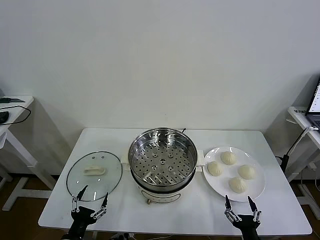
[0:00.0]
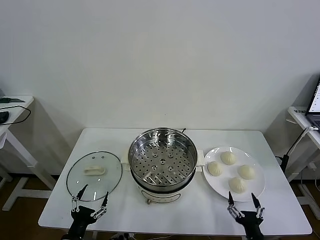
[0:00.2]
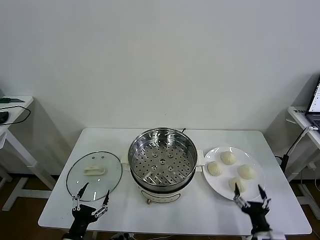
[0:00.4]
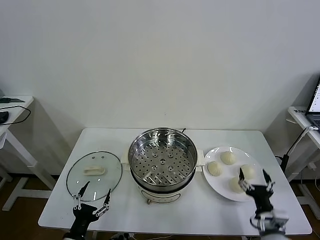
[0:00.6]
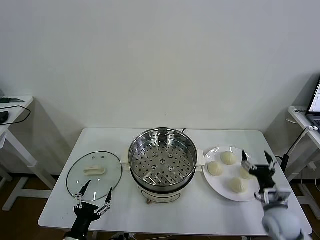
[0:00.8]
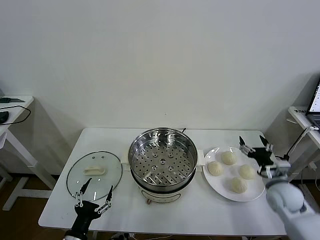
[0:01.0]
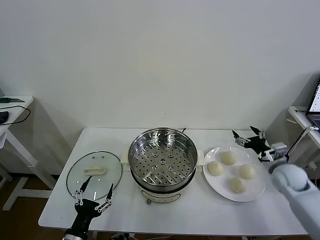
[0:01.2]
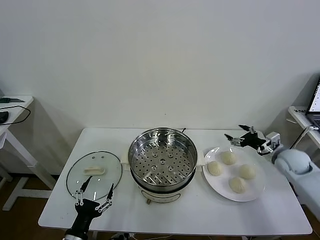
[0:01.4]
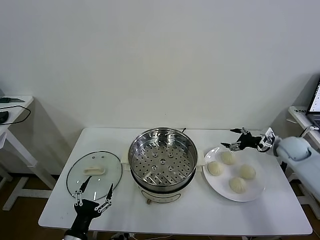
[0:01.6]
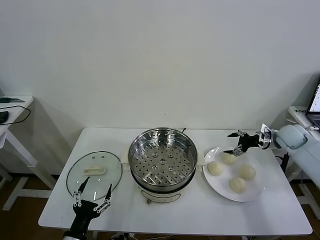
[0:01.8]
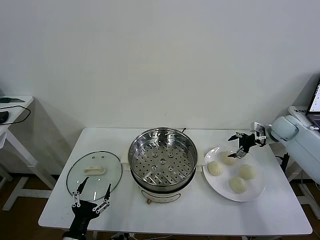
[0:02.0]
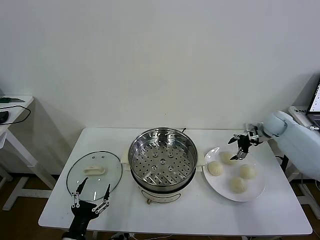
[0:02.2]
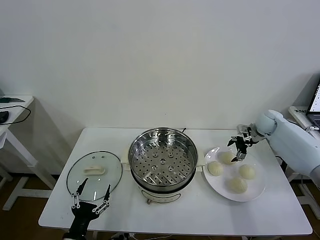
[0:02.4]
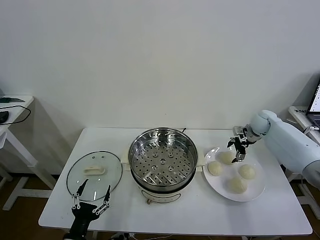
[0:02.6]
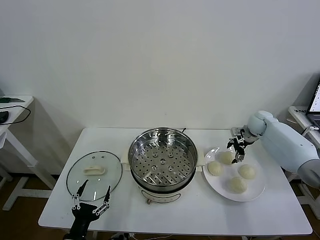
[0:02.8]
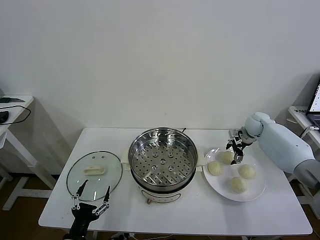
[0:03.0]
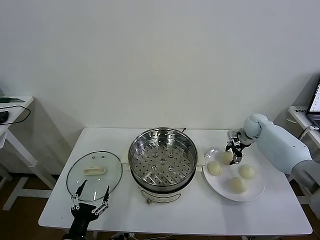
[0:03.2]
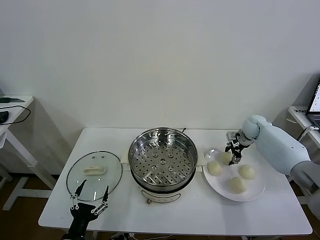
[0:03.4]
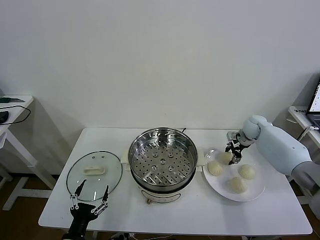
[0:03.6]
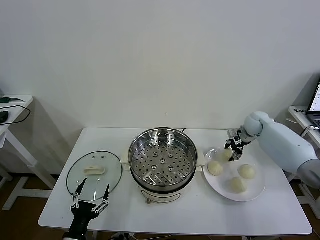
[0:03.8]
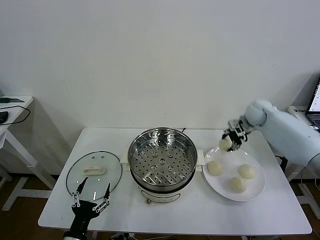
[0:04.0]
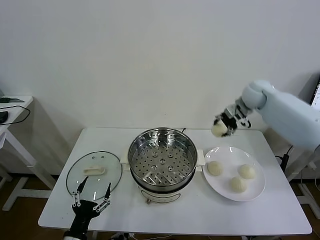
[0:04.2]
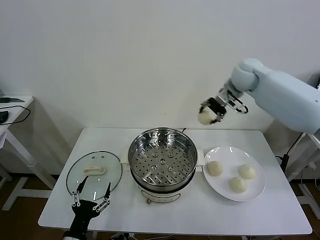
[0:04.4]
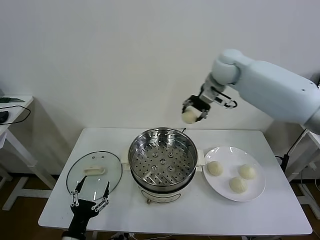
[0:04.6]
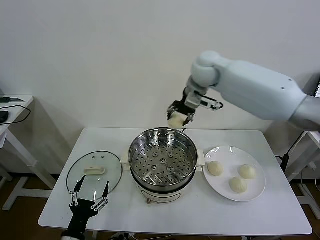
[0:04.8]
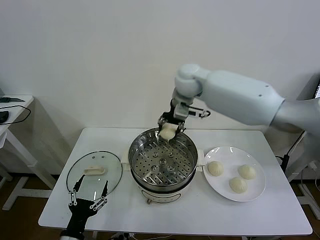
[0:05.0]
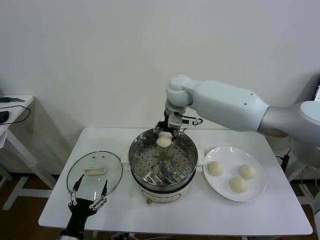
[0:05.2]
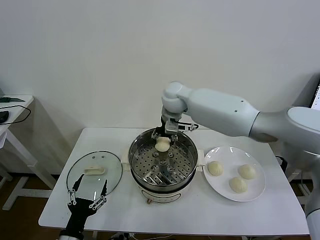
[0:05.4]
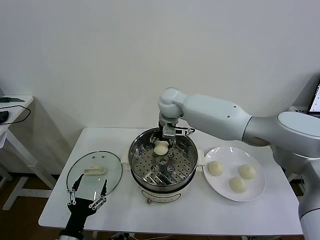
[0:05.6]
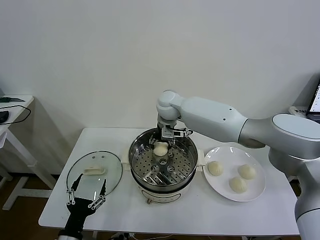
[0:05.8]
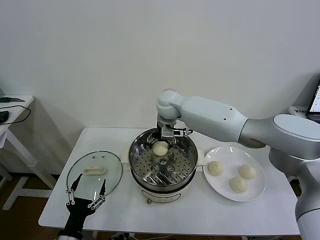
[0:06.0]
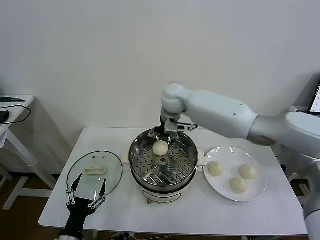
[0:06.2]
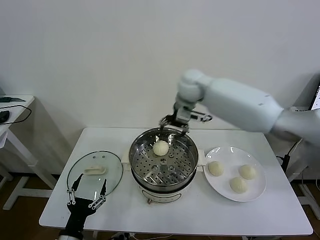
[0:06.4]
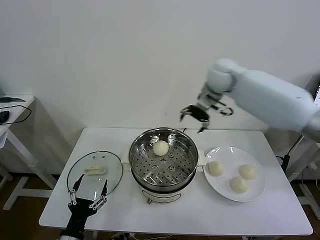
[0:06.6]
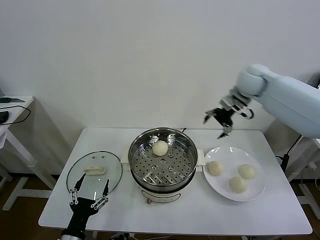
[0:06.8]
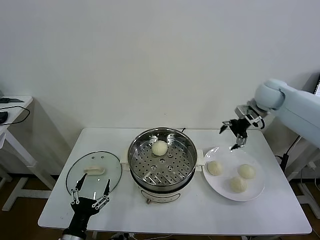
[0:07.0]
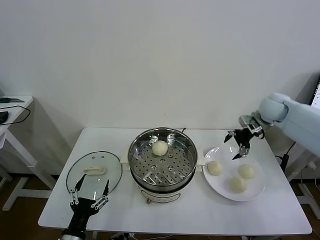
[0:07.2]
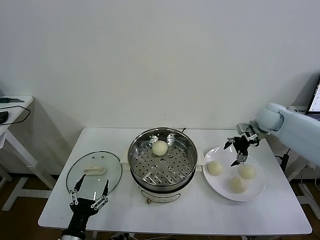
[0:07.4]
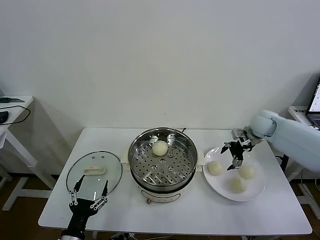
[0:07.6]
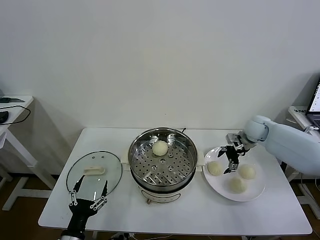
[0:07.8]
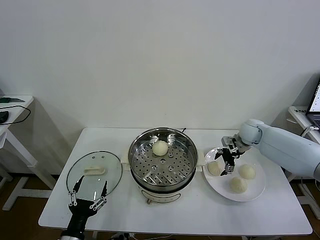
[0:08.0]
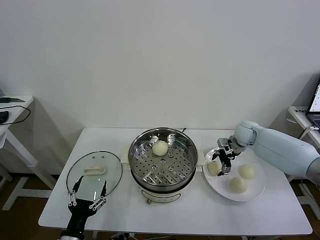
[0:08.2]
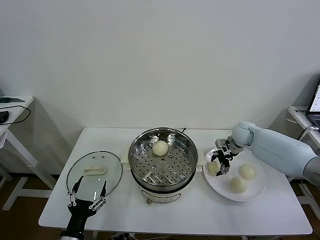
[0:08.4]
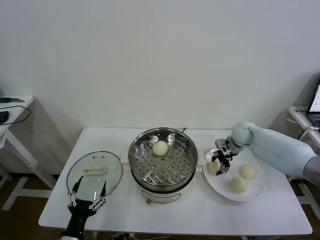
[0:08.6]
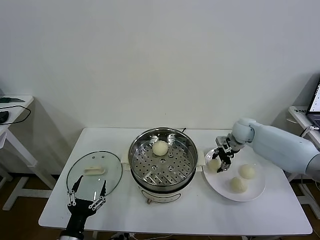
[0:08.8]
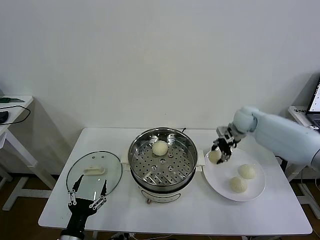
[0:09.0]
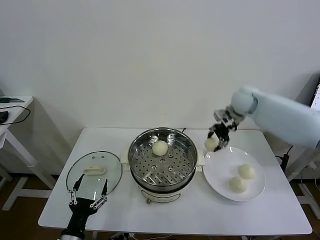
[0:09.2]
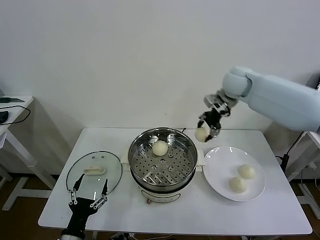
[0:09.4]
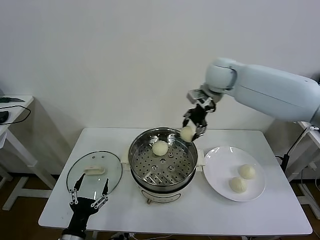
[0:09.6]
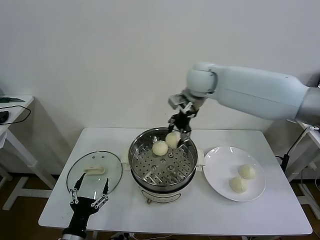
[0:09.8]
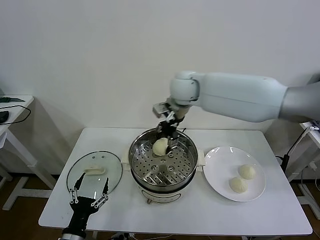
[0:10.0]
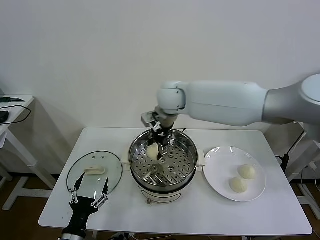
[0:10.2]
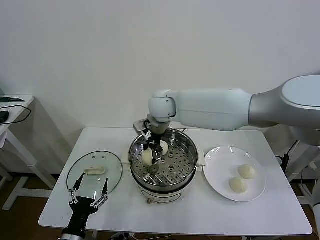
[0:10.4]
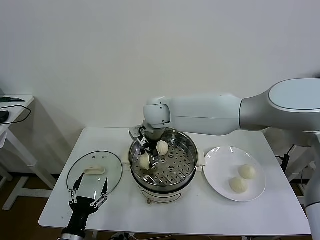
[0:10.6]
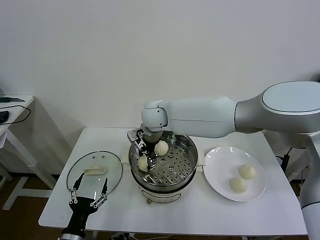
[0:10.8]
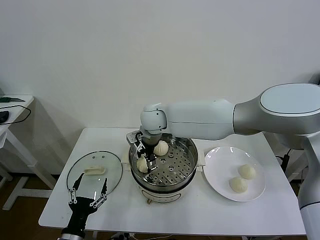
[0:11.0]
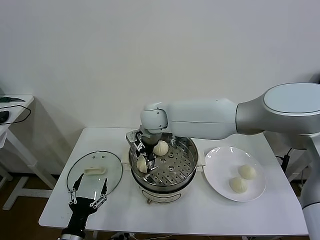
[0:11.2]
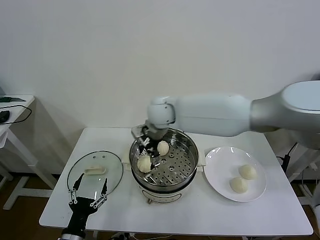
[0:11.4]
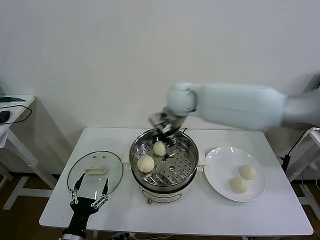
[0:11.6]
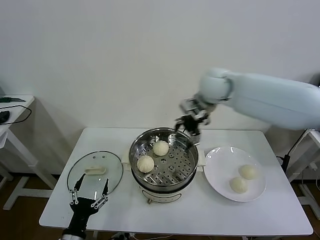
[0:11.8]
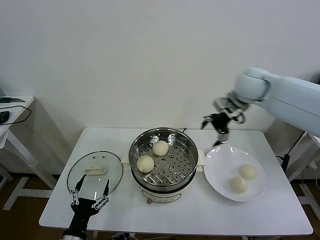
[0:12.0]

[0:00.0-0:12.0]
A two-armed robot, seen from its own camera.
Task of the whole recording: take steamed baozi put them in steamer then cover it.
Step, 0.0 to 3.4 s: Grasp the baozi in the plate with right gripper.
Step, 3.6 to 6.0 s: Place the baozi on the steamer with right gripper.
Step, 6.2 to 8.6 s: Grasp the baozi in the plate with right gripper.
Step, 8.8 to 11.2 s: Place the baozi on the steamer with right gripper.
1.6 to 3.0 s: The right gripper is displaced forward and to the left by some 15 cm.
3.0 to 4.4 s: The right gripper travels upward and to the left by some 30 cm, and closes up.
4.4 to 6.0 s: The right gripper goes roughly 20 cm to the left and downward, and opens its fingers.
6.0 to 7.6 s: The right gripper is displaced to the right by approximately 35 cm.
7.6 to 9.0 s: The right gripper goes some 10 cm to the left and upward, and closes.
9.0 to 10.4 s: The right gripper travels to the left by some 30 cm.
10.4 to 12.0 s: The right gripper heads to the right, covering some 30 cm, and opens up.

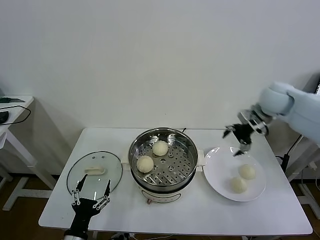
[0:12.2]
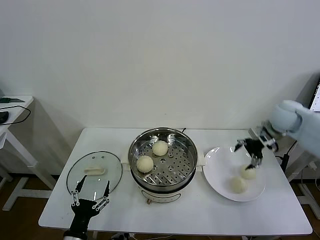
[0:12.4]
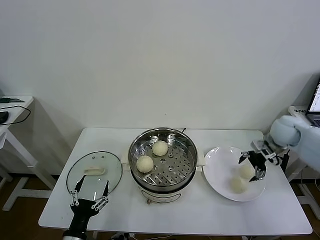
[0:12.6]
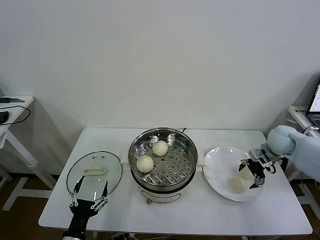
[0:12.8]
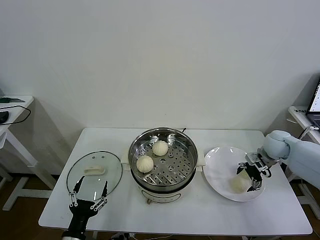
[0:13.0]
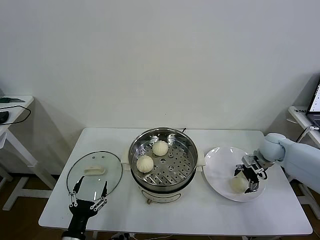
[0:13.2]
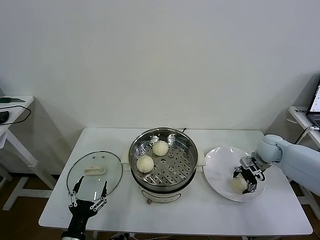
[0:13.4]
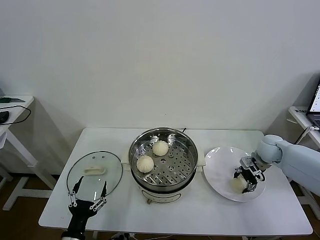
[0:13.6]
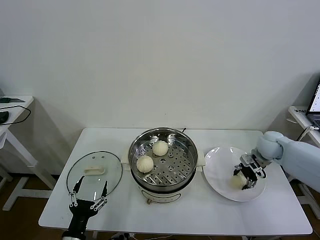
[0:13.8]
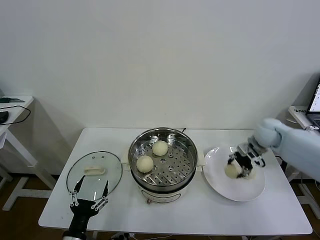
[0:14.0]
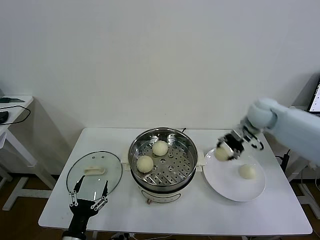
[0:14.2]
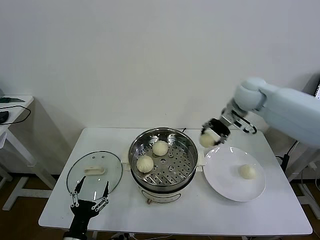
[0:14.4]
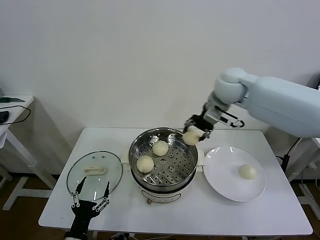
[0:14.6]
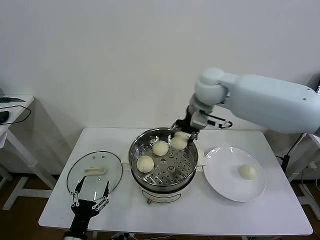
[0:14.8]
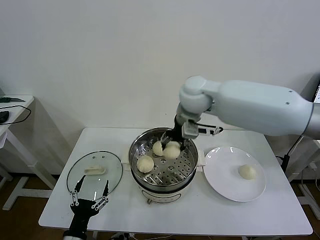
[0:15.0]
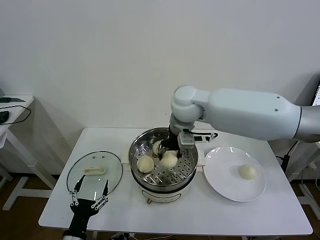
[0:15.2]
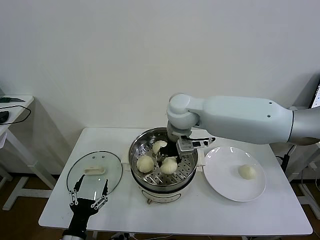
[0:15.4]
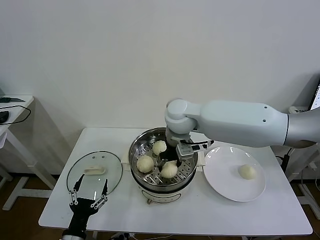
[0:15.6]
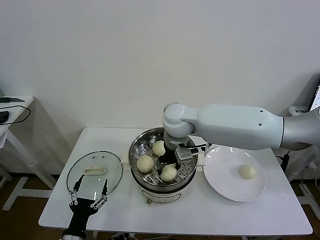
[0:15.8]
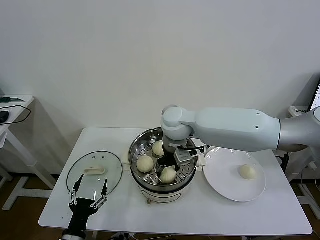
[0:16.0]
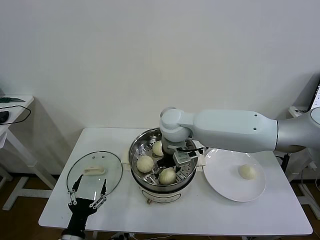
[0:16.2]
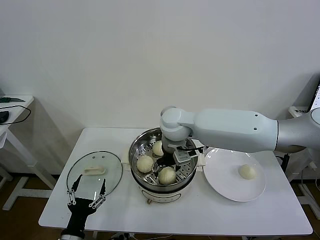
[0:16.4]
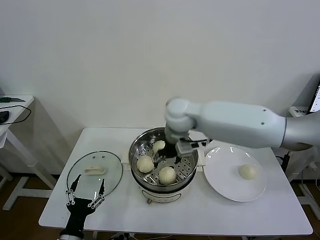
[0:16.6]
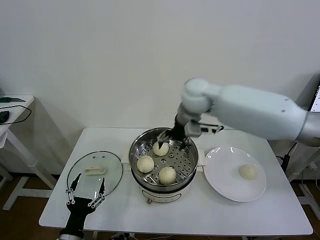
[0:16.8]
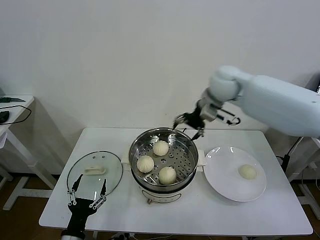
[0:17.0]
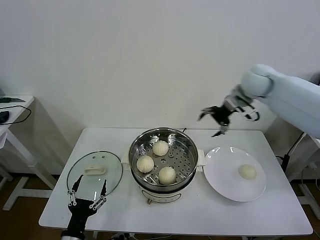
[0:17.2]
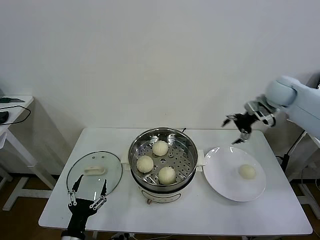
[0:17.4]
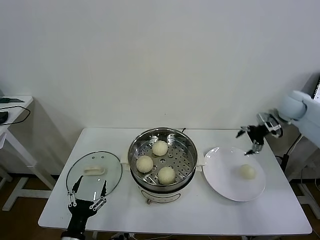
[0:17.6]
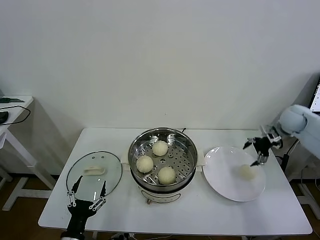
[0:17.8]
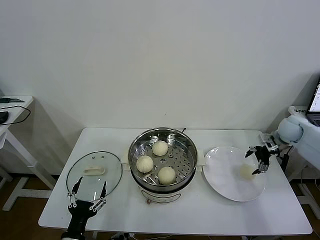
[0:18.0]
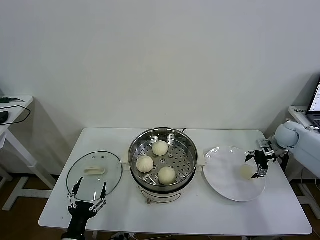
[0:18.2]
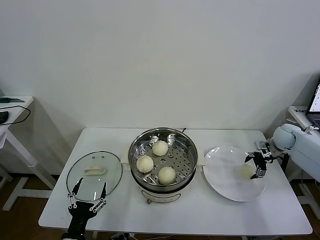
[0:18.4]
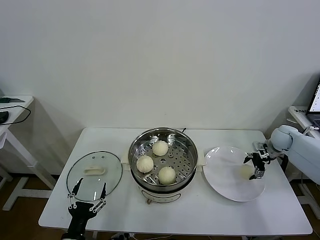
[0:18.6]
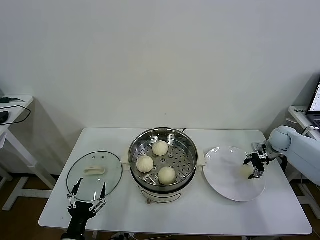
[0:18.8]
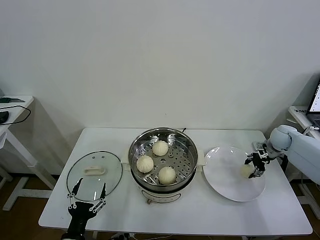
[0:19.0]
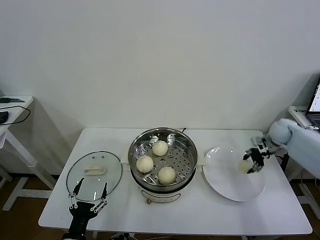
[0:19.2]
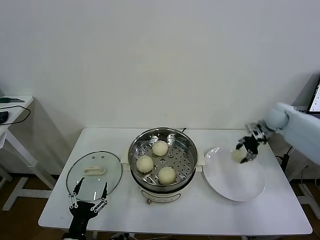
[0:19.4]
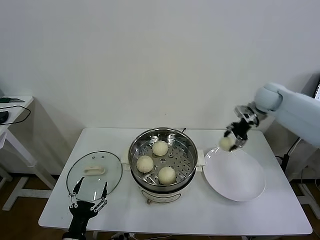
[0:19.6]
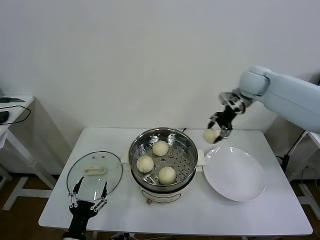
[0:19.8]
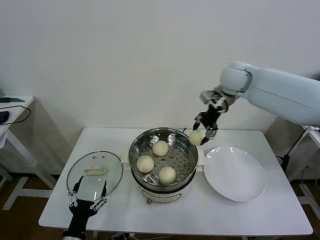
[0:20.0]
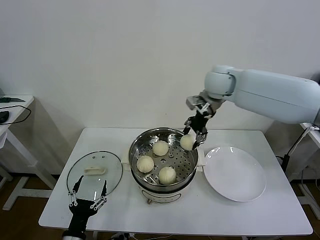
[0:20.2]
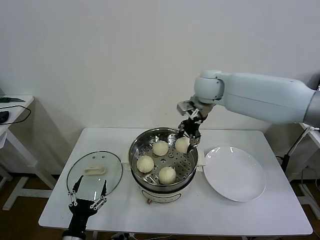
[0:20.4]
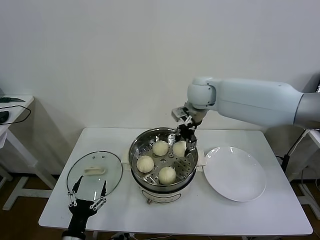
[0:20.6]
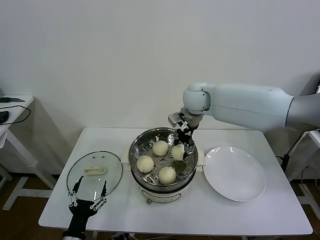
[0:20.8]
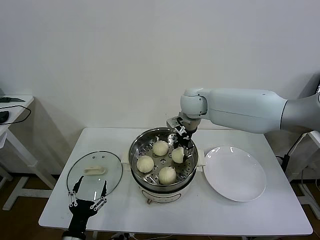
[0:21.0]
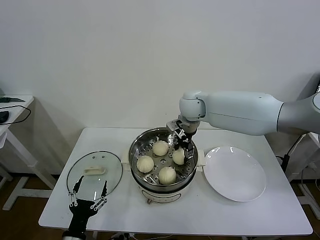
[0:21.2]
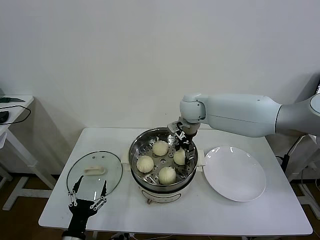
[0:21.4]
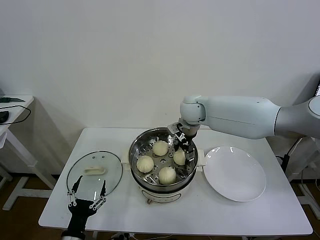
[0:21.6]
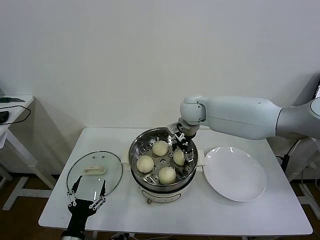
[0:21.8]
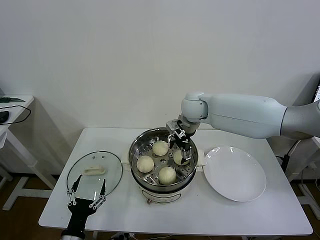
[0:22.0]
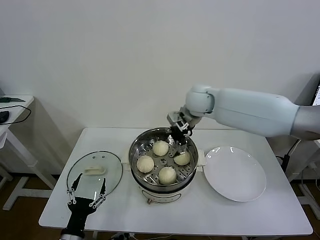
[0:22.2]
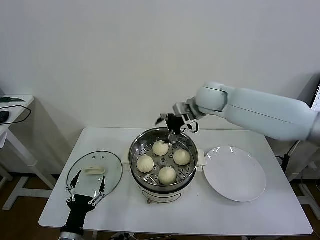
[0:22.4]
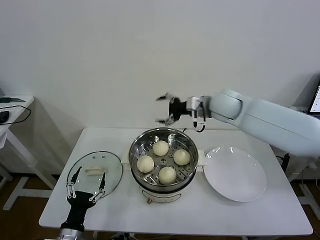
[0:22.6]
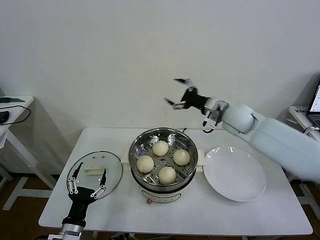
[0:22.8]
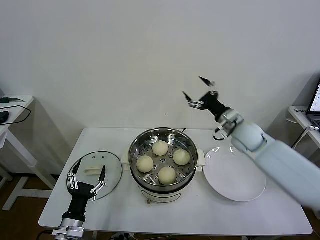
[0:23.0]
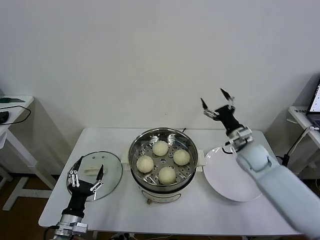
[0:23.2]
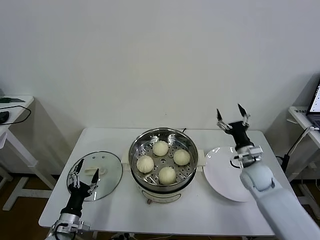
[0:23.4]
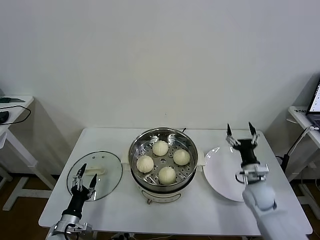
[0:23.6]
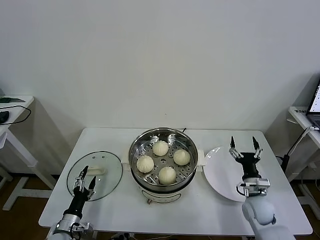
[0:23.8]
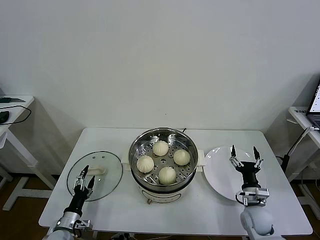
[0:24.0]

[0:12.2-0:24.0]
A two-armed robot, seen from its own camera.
Task of the whole recording: take steamed baozi put them in steamer then cover it.
Step, 12.2 to 13.6 s: Grasp the baozi in the plate with right gripper.
Step, 13.8 to 16.2 s: Place the baozi on the steamer with right gripper.
Step, 16.6 to 18.8 s: Grasp the baozi in the plate with right gripper.
Step, 19.2 to 21.6 s: Place the baozi on the steamer with right gripper.
12.2 to 13.6 s: The right gripper goes about 15 cm downward, and closes.
13.6 to 15.2 s: The right gripper moves to the left and upward, roughly 40 cm.
15.2 to 16.6 s: The right gripper opens.
16.6 to 18.2 s: The right gripper is displaced to the right by about 40 cm.
18.2 to 19.6 s: The right gripper heads upward and to the left, covering roughly 20 cm, and closes up.
19.6 to 21.0 s: The right gripper shifts some 25 cm to the left.
21.0 to 22.6 s: The right gripper heads to the right, covering approximately 10 cm, and opens.
22.6 to 24.0 s: The right gripper travels downward, backward and to the right by about 40 cm. Meanwhile the left gripper moves downward, forward and to the left, roughly 15 cm.
